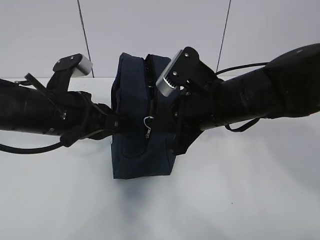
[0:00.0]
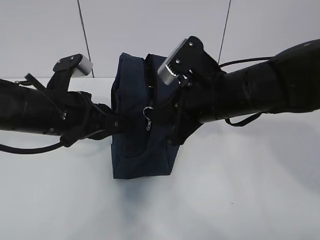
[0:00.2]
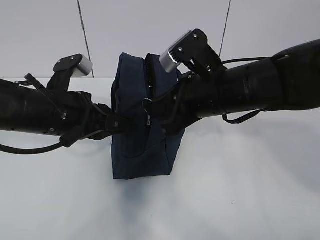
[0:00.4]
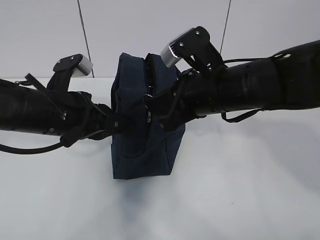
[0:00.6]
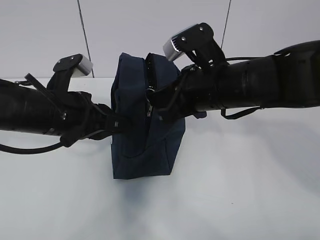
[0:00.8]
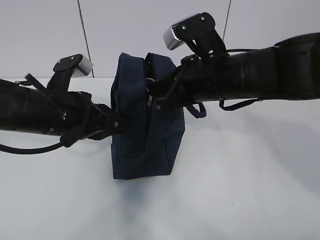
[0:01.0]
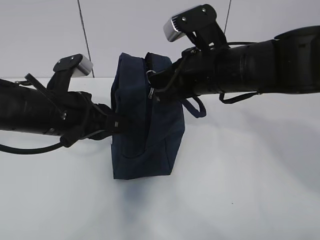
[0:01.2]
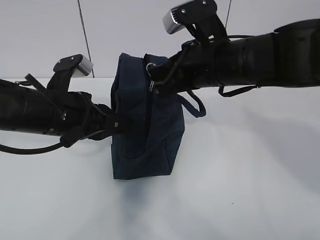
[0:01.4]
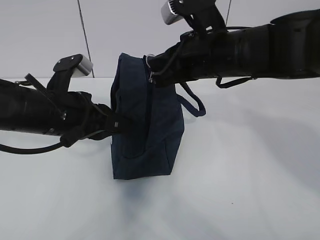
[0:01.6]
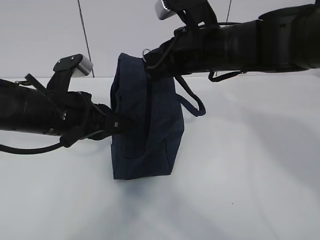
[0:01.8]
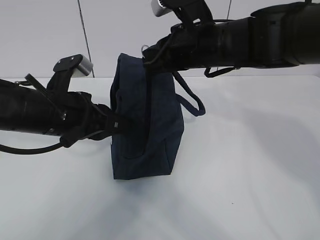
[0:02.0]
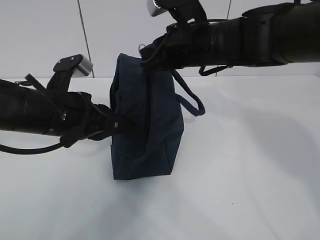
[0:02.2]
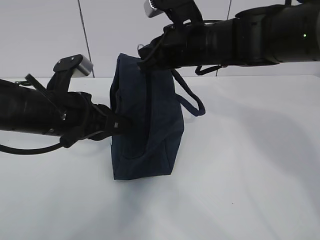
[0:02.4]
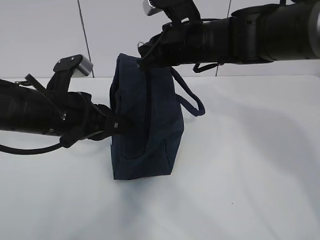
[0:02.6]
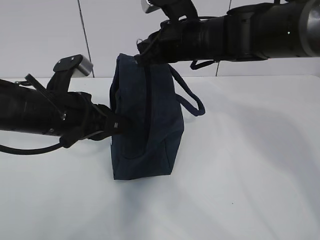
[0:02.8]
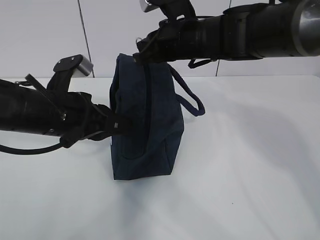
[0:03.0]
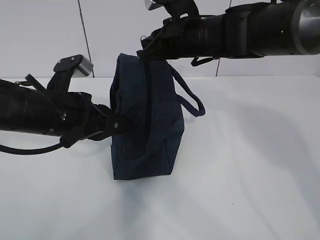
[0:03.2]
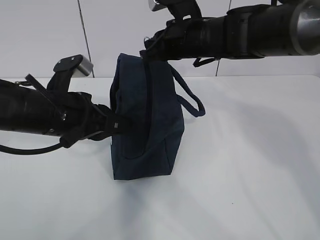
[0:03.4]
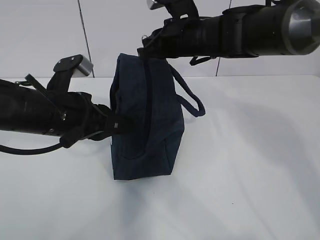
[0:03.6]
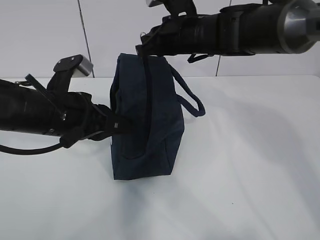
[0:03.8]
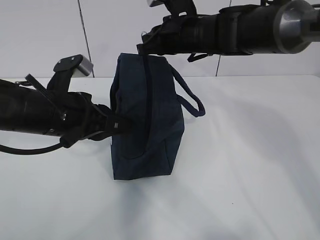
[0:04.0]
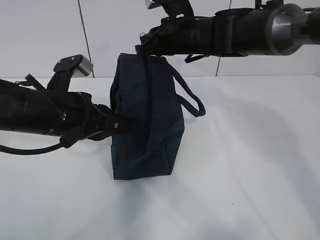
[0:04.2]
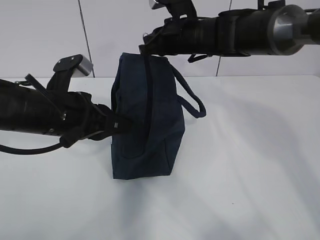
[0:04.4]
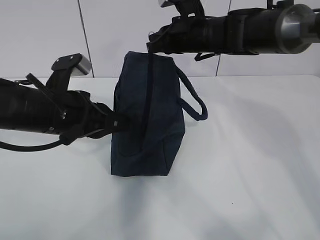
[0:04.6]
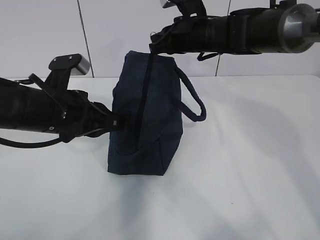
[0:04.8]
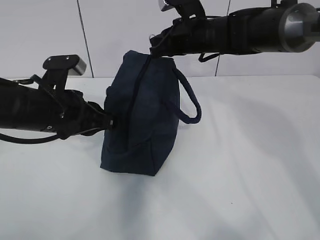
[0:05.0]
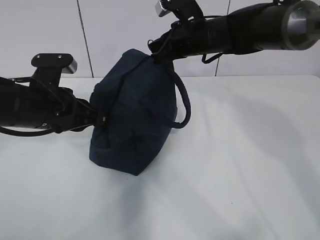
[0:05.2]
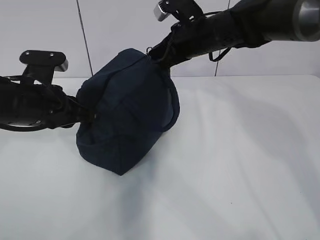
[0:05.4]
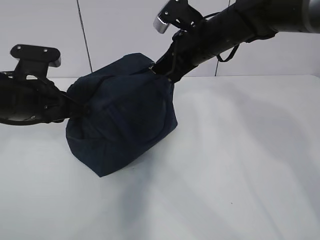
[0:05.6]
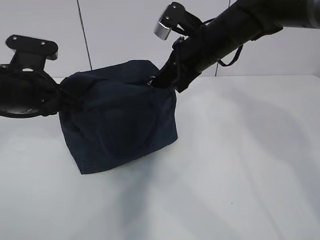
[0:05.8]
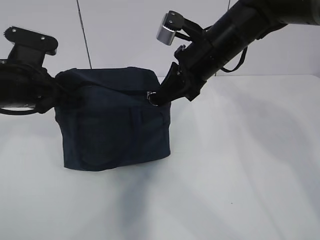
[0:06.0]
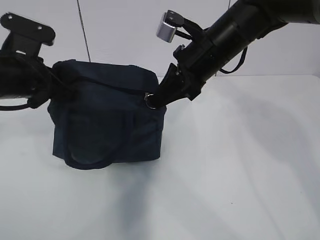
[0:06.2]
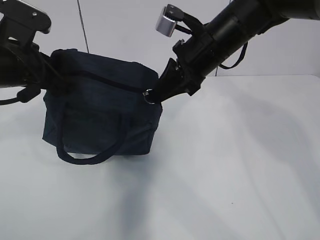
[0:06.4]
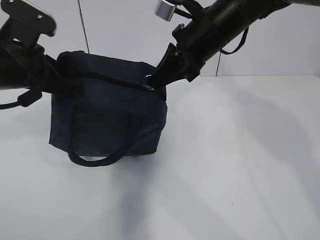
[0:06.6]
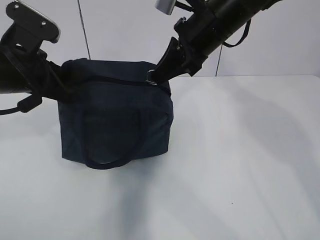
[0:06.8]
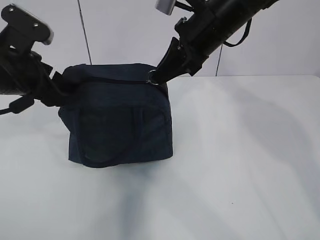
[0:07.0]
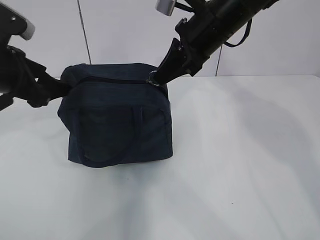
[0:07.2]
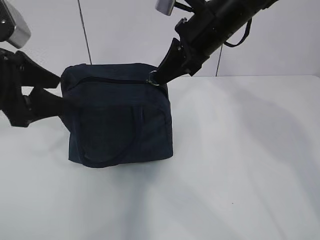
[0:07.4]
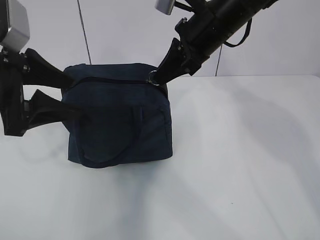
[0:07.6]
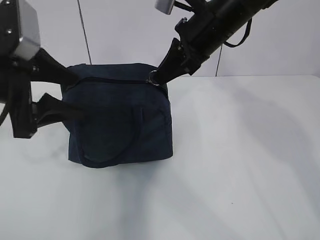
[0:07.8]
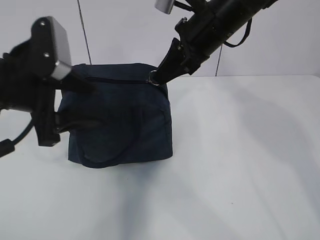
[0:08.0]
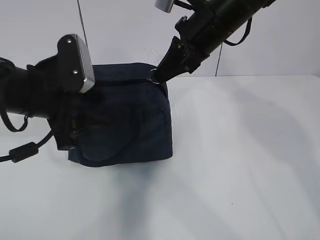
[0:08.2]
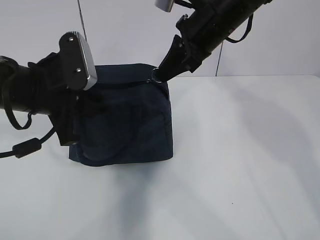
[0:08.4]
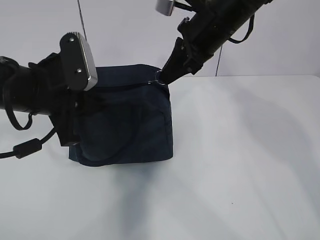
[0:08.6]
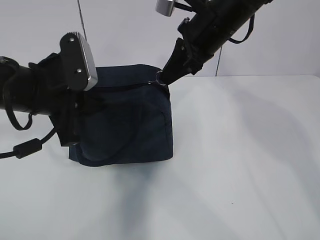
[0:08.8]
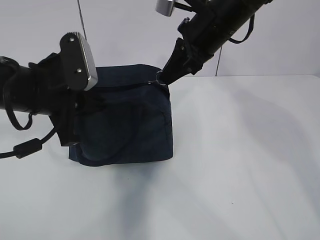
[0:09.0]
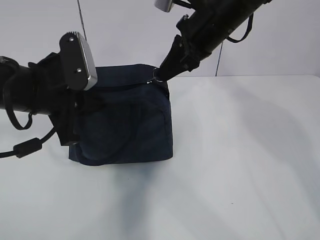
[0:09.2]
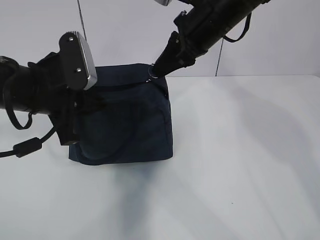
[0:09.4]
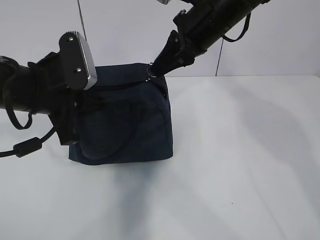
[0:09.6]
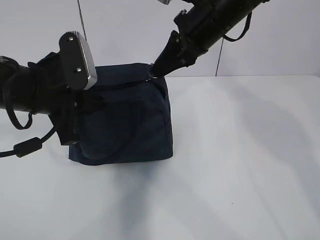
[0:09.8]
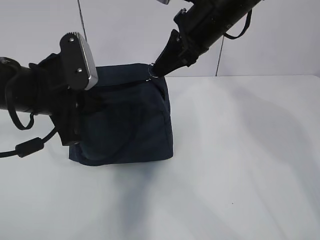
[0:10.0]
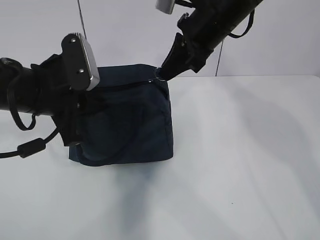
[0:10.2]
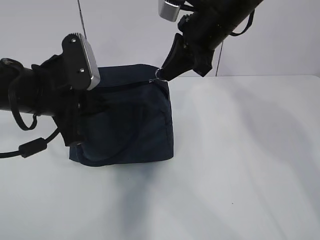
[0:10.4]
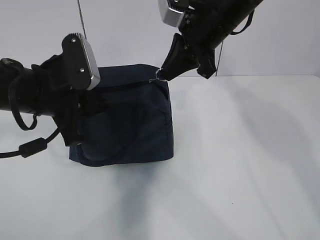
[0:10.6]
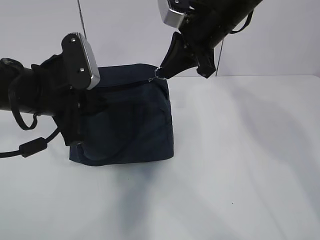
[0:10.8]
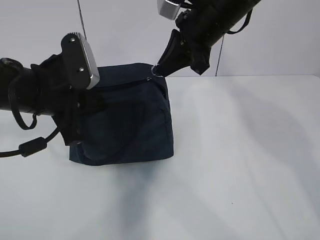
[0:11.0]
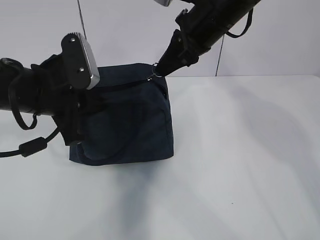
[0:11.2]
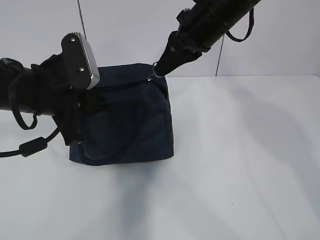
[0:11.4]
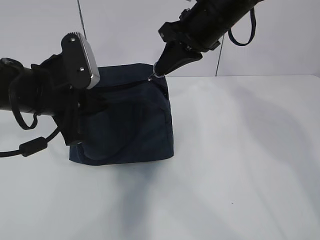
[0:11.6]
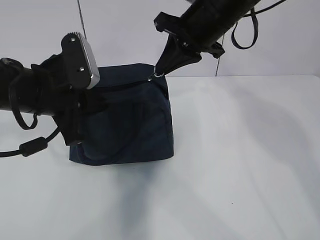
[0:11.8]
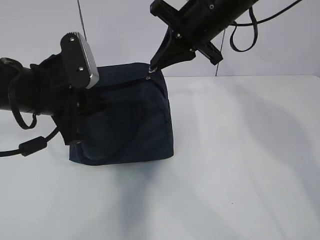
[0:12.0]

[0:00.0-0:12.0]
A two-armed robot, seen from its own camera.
Step, 0:01.6 to 0:06.0: Grab the lunch bag with your left hand.
0:00.0 to 0:01.6: The right gripper is displaced upward by some 5 cm.
0:01.6 to 0:03.0: The right gripper goes approximately 5 cm forward.
0:03.0 to 0:04.4: The right gripper is displaced forward by roughly 5 cm.
0:04.4 to 0:06.0: The left gripper travels to the left by approximately 5 cm. Meanwhile the right gripper goes approximately 10 cm backward.
0:06.0 to 0:07.6: The left gripper goes approximately 10 cm upward and backward, and opens up.
0:07.6 to 0:09.0: The left gripper moves some 5 cm, and closes.
0:09.0 to 0:10.4: There are only small adjustments of the grippers.

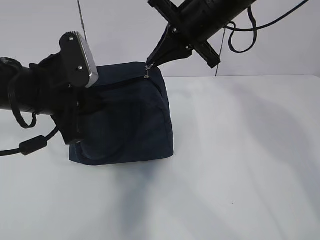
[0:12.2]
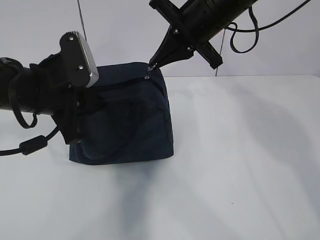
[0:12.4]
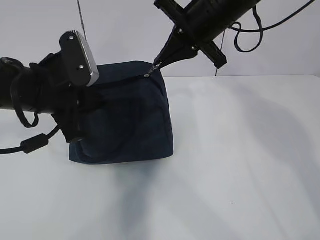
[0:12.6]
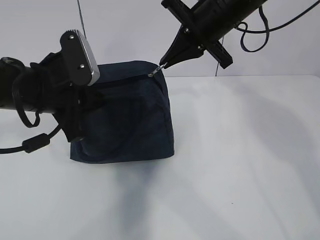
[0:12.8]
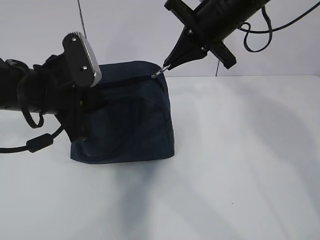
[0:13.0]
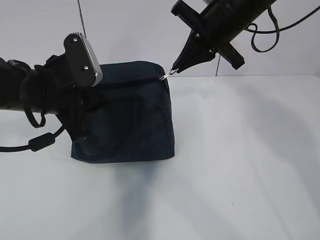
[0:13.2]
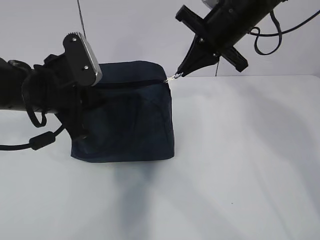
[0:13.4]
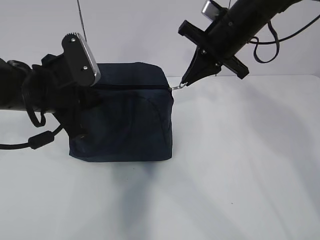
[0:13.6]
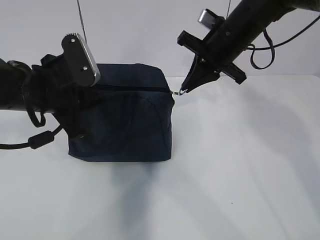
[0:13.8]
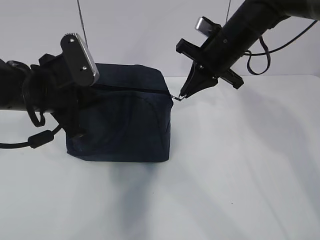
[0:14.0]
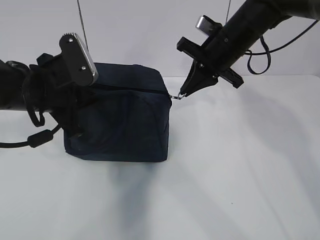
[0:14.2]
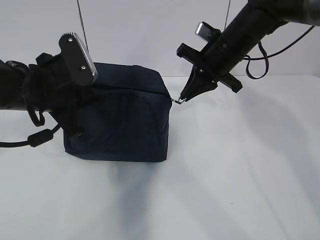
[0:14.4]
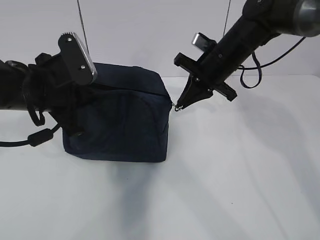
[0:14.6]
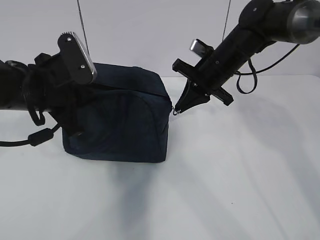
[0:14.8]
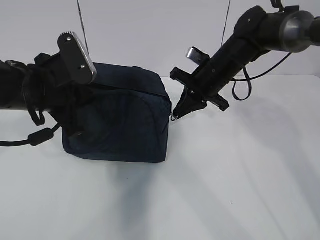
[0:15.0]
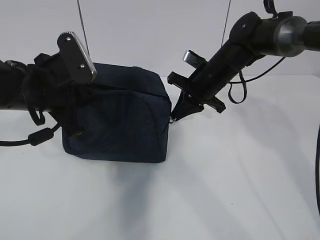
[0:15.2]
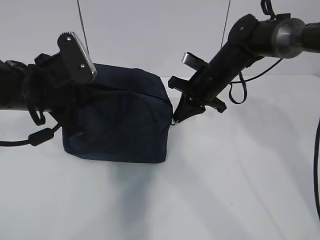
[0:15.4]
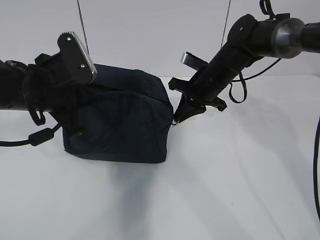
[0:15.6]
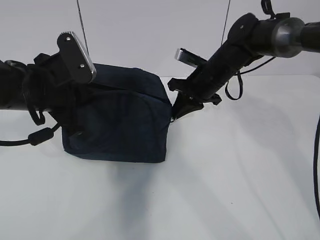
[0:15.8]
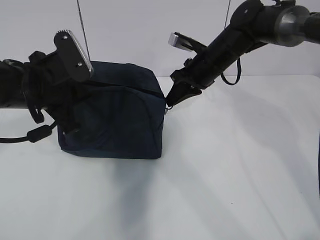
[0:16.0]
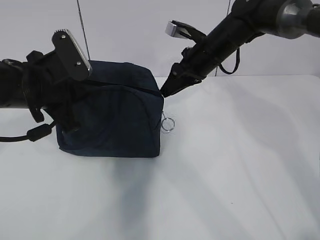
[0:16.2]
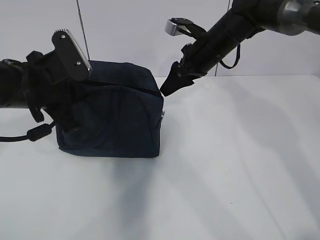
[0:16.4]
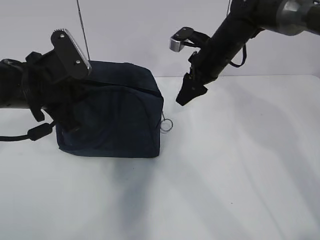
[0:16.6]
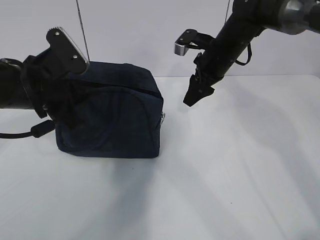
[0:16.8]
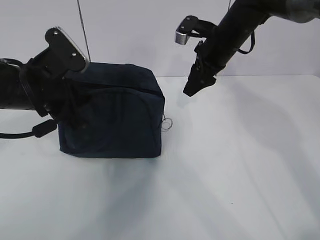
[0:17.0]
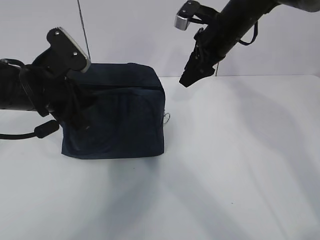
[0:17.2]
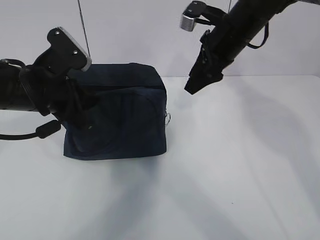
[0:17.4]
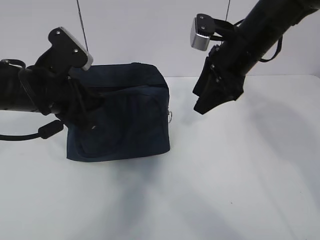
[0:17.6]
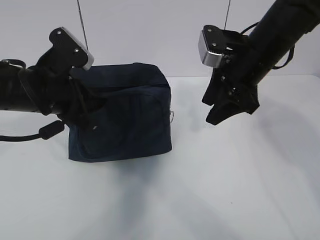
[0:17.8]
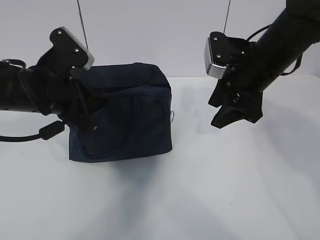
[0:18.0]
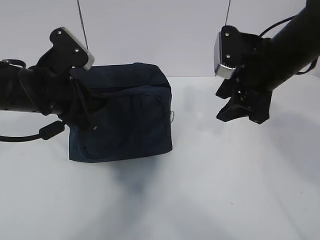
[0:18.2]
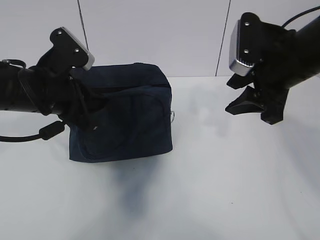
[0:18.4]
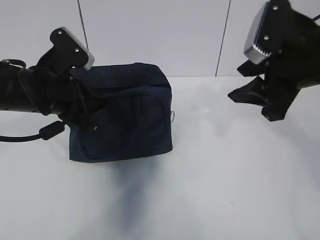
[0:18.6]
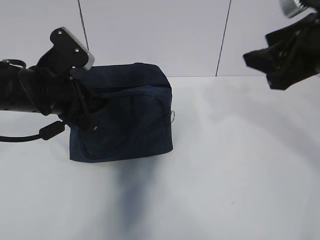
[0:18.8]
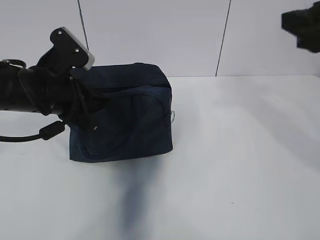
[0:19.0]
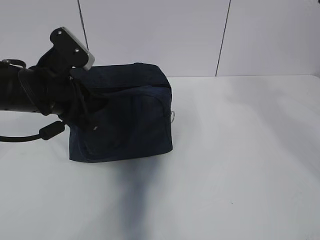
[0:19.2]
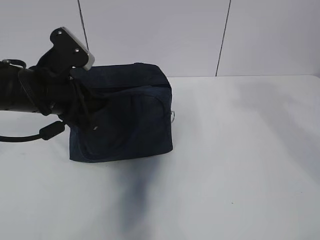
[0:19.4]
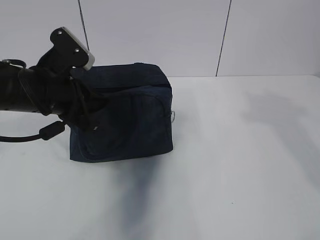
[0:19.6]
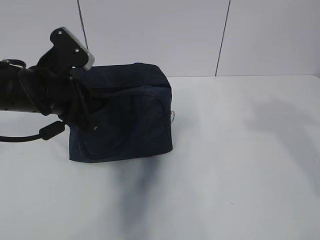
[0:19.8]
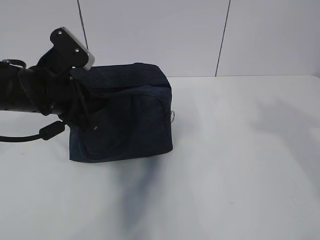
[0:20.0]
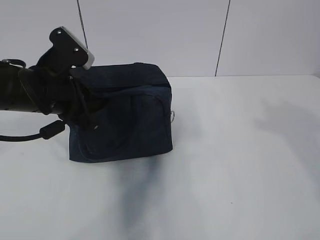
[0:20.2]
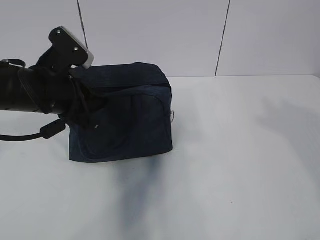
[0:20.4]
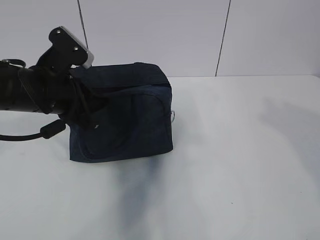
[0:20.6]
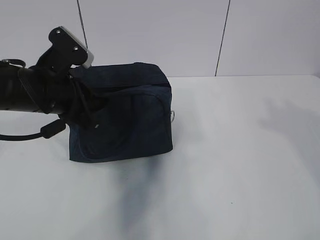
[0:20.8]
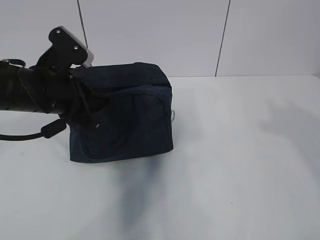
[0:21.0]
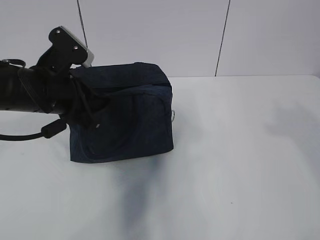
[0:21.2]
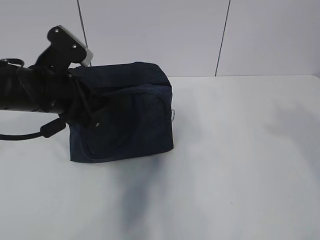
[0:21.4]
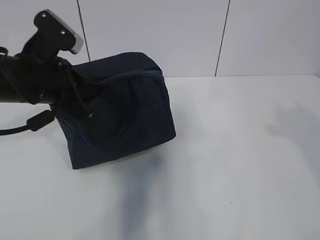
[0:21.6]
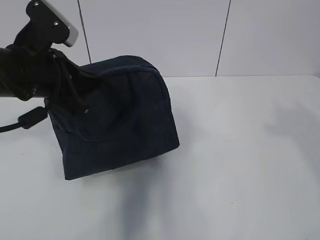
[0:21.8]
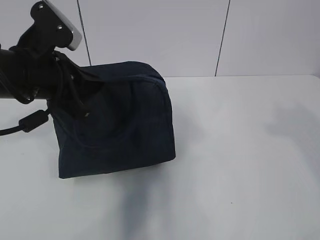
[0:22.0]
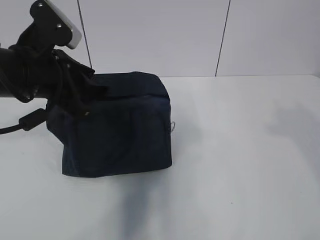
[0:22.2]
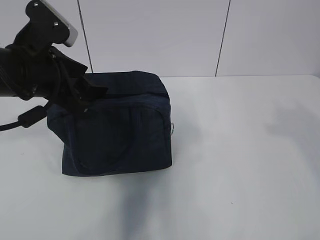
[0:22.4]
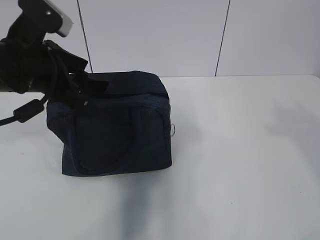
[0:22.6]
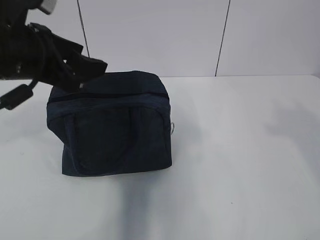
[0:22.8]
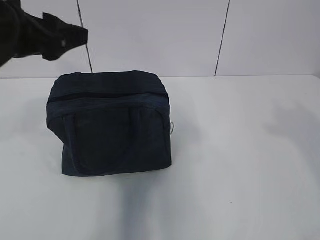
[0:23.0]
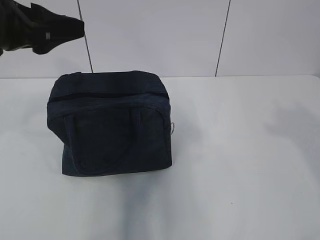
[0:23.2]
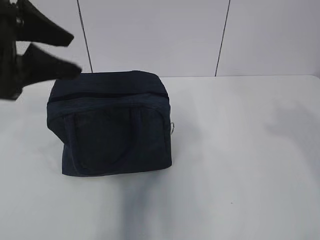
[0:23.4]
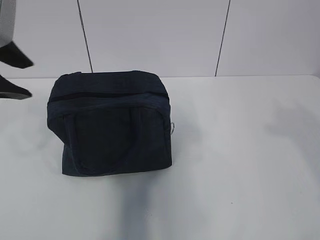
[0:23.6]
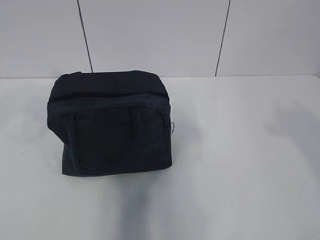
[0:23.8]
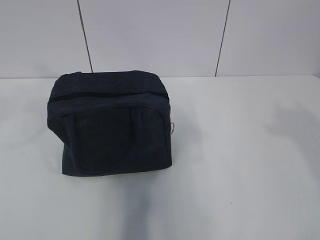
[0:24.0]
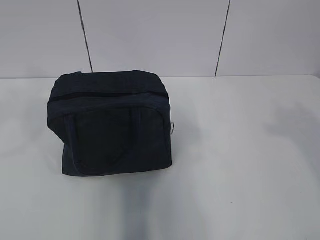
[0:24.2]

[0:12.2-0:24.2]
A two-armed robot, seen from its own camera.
0:12.2 to 0:13.8: The right gripper goes about 10 cm downward and to the right.
0:13.8 to 0:15.2: The right gripper travels downward by about 10 cm.
0:15.2 to 0:16.6: The right gripper opens up.
0:16.6 to 0:18.2: The right gripper shifts about 15 cm backward.
0:18.2 to 0:19.8: The right gripper heads backward and to the right, covering approximately 20 cm.
0:21.2 to 0:22.6: The left gripper ends up about 5 cm from where it was, and opens up.
0:22.6 to 0:24.2: The left gripper heads upward, backward and to the left, covering some 20 cm.
